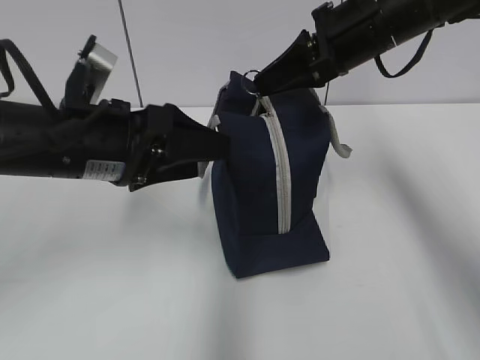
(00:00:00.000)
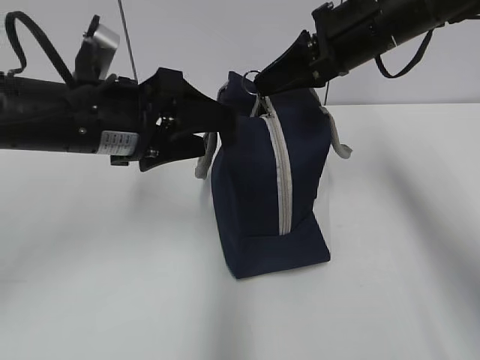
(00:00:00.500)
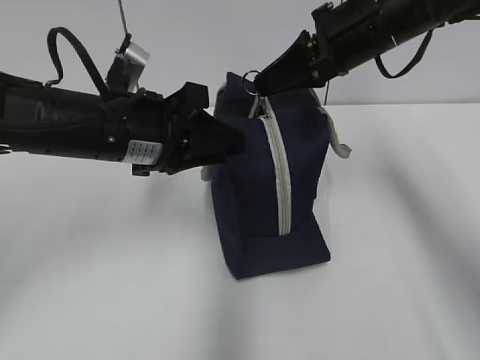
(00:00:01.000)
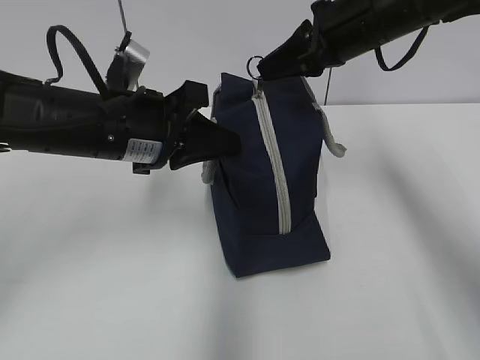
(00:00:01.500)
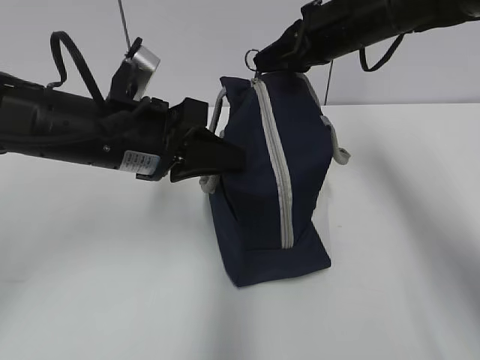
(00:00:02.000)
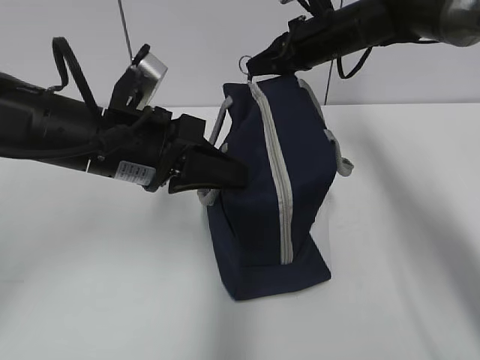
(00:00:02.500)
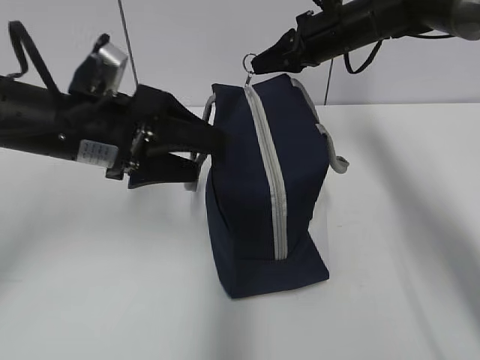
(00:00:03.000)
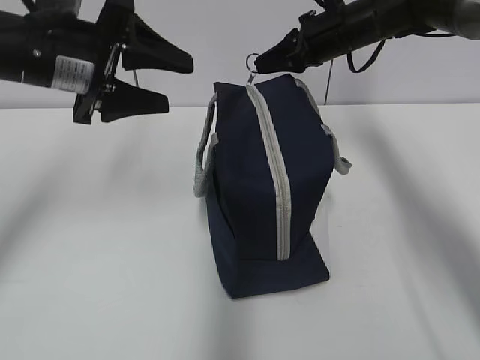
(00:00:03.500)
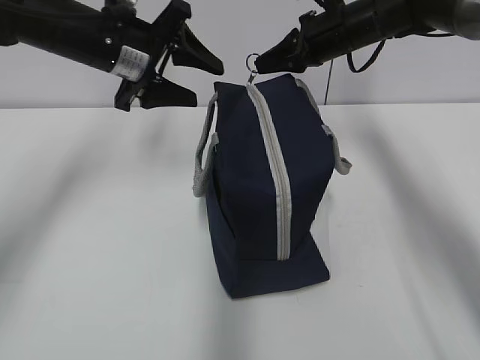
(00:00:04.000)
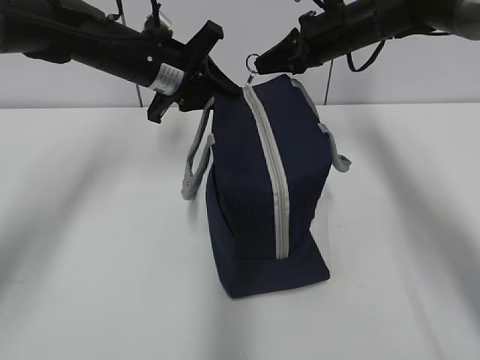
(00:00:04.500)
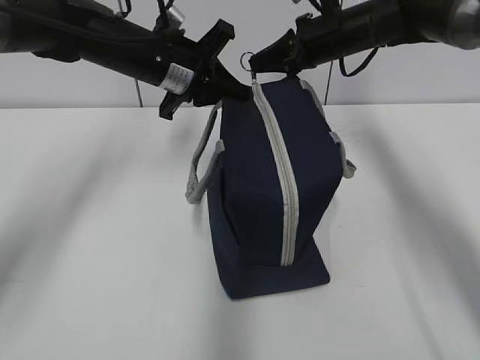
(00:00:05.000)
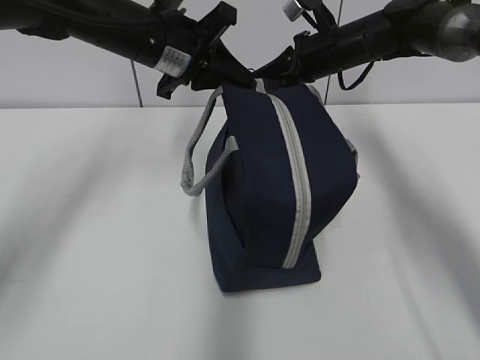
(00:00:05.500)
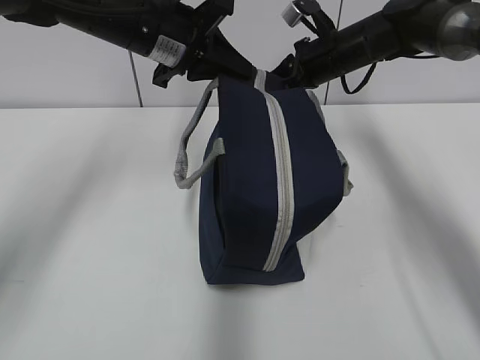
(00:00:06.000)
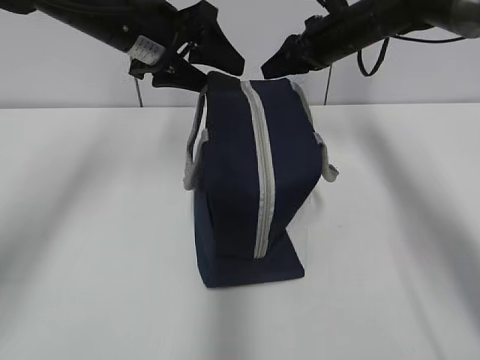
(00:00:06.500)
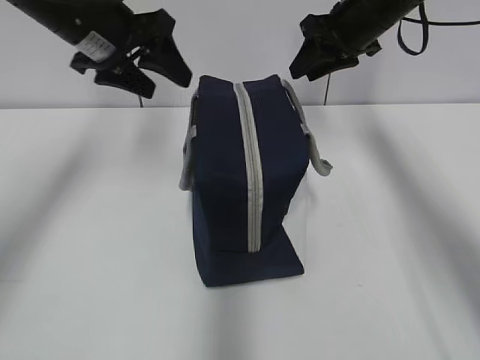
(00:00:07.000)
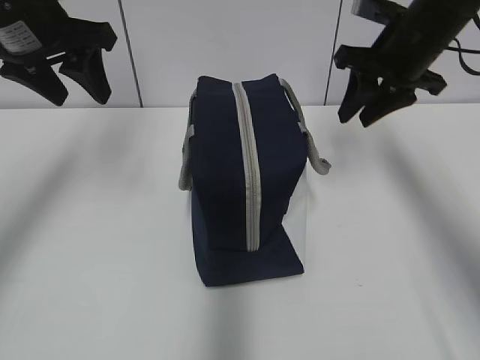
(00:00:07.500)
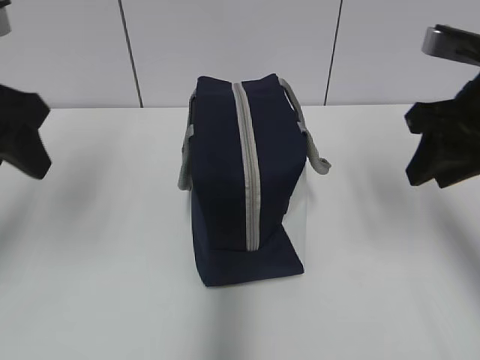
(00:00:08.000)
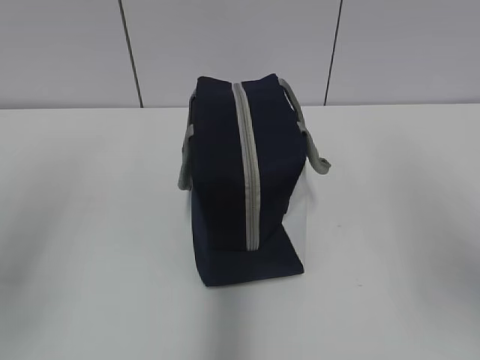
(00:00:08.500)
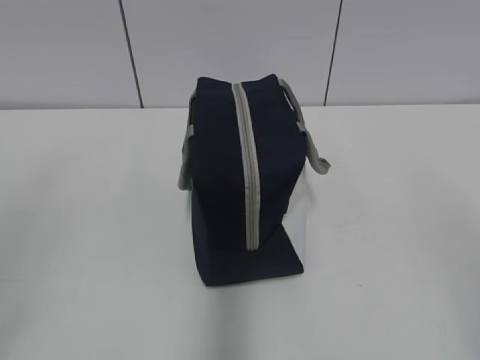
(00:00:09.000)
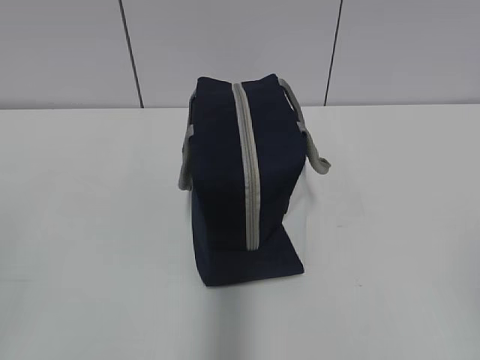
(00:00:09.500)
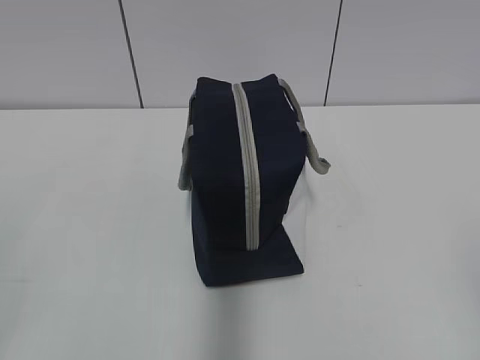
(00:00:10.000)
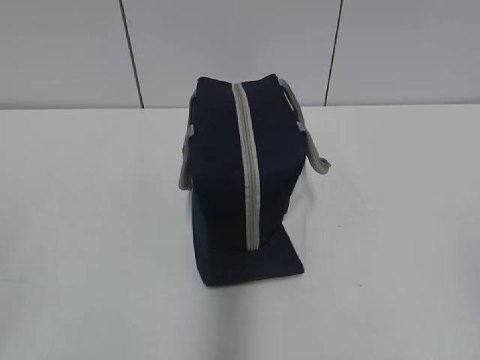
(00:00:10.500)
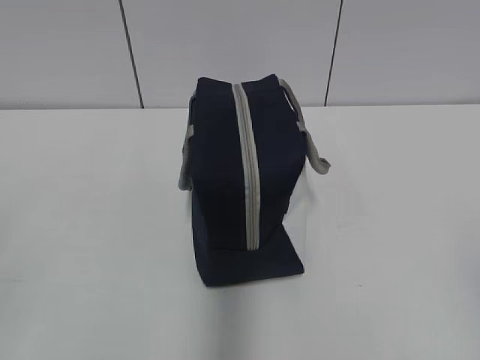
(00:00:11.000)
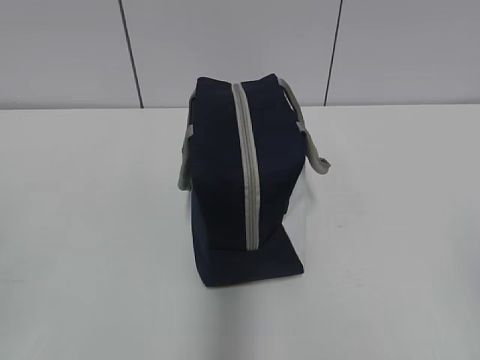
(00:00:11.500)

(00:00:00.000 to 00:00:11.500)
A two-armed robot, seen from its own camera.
00:00:00.000 - 00:00:02.000: The left gripper closes up. The right gripper goes roughly 5 cm forward.
00:00:02.000 - 00:00:04.000: The right gripper heads forward, covering approximately 5 cm. Meanwhile the left gripper travels forward by roughly 10 cm, and opens up.
00:00:04.000 - 00:00:06.000: The left gripper closes its fingers.
00:00:06.000 - 00:00:07.500: The right gripper shifts roughly 10 cm backward and upward, and opens, while the left gripper moves to the left, approximately 10 cm, and opens up.
00:00:07.500 - 00:00:09.500: Both grippers move backward, roughly 40 cm.
